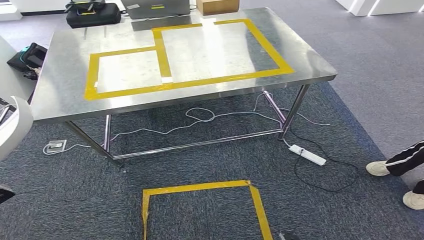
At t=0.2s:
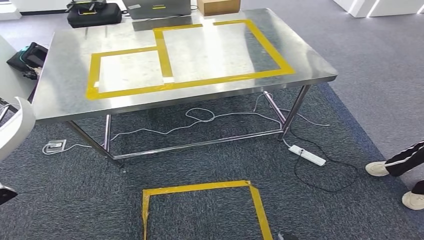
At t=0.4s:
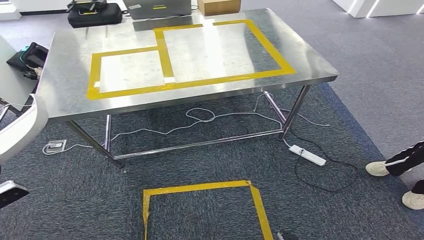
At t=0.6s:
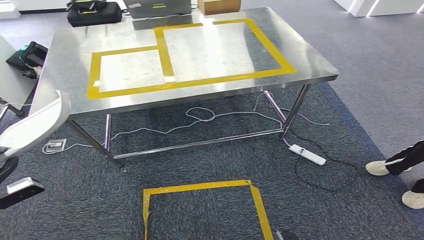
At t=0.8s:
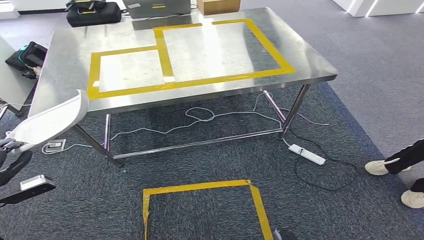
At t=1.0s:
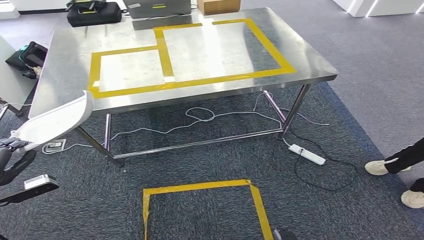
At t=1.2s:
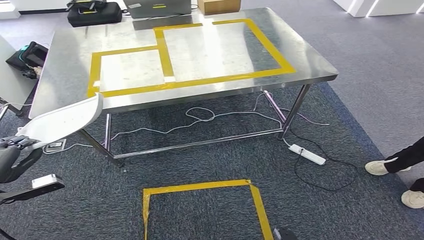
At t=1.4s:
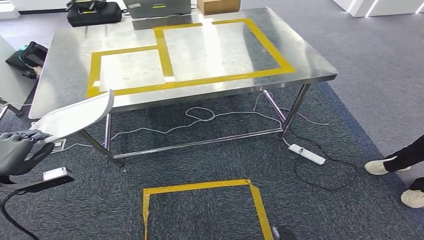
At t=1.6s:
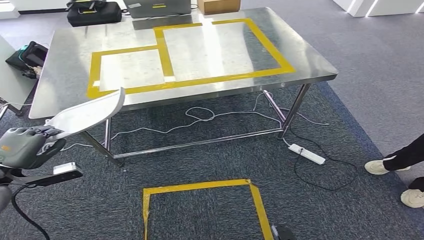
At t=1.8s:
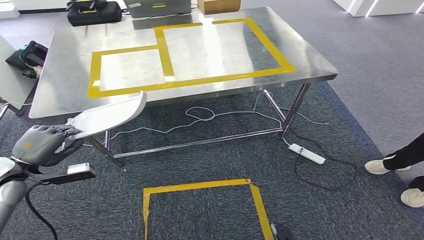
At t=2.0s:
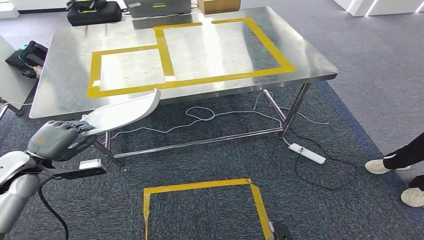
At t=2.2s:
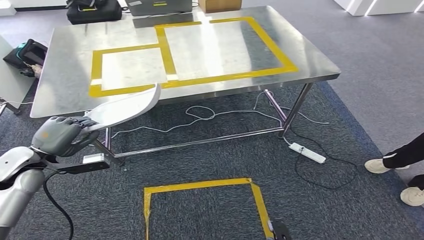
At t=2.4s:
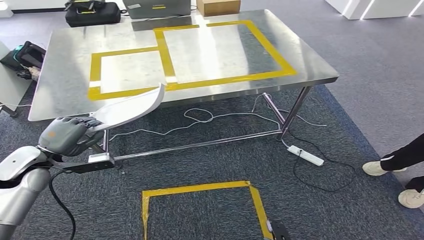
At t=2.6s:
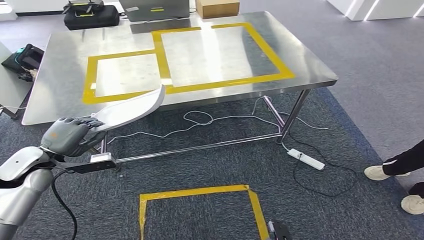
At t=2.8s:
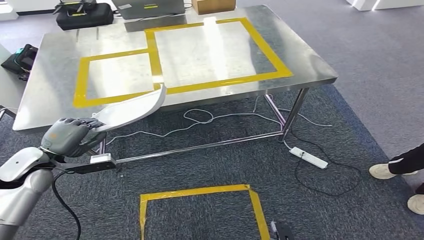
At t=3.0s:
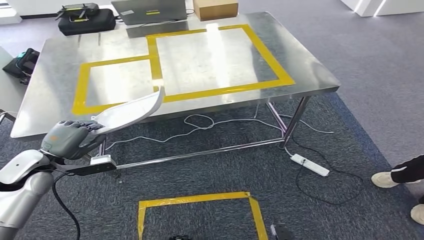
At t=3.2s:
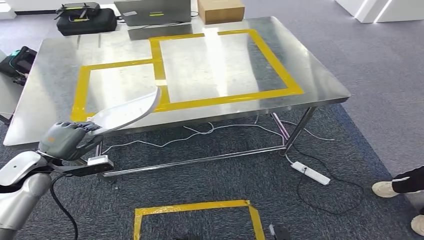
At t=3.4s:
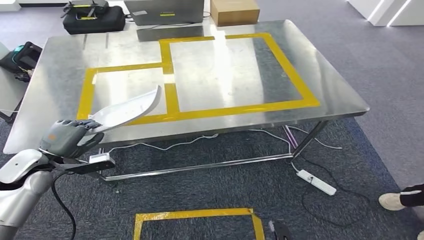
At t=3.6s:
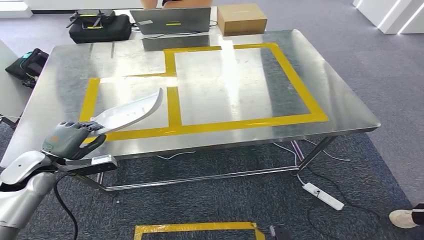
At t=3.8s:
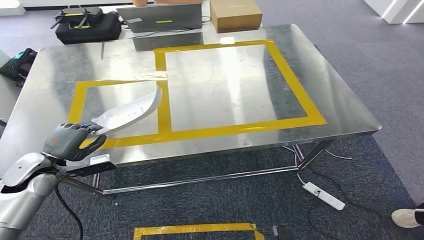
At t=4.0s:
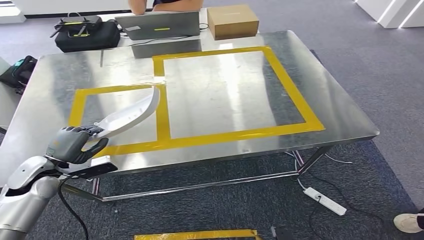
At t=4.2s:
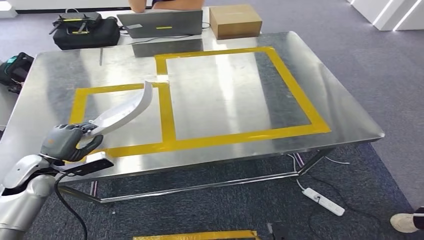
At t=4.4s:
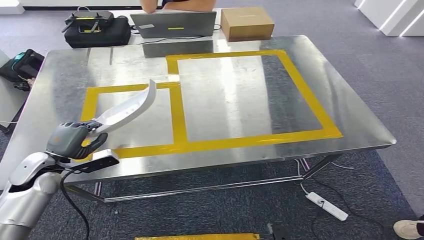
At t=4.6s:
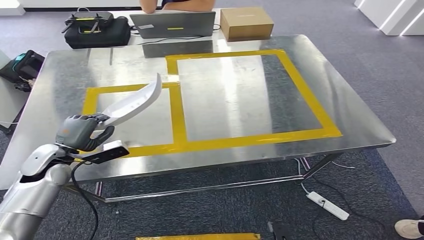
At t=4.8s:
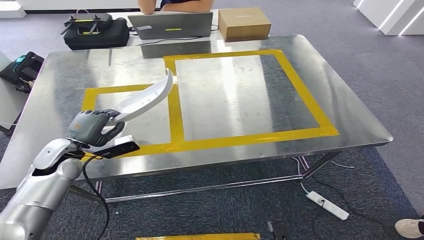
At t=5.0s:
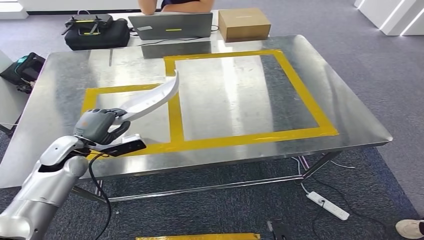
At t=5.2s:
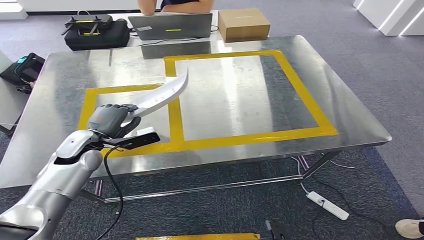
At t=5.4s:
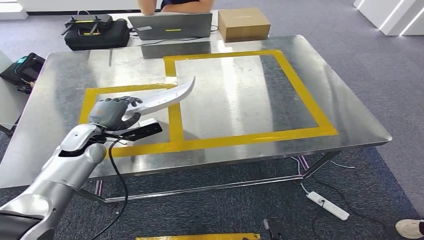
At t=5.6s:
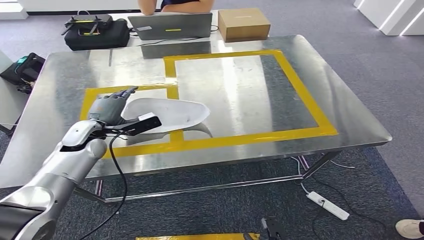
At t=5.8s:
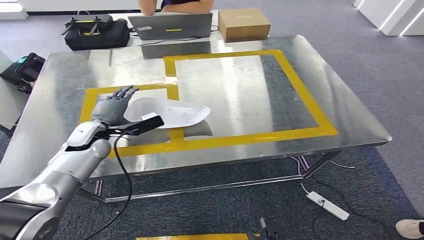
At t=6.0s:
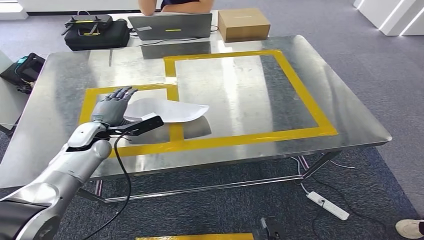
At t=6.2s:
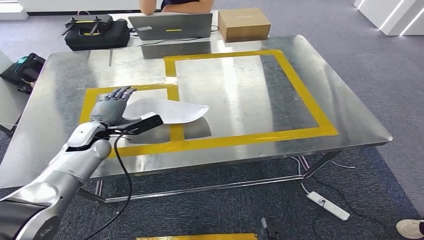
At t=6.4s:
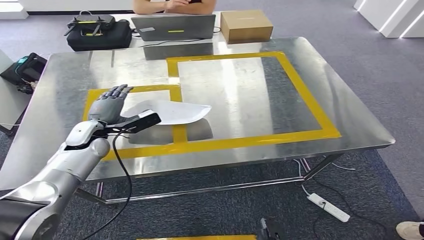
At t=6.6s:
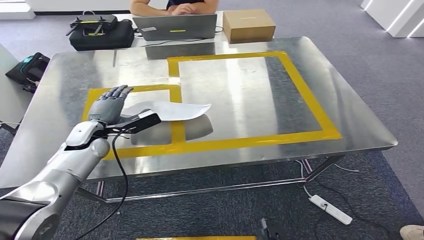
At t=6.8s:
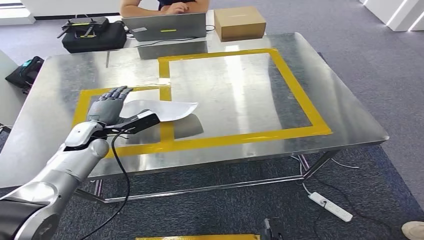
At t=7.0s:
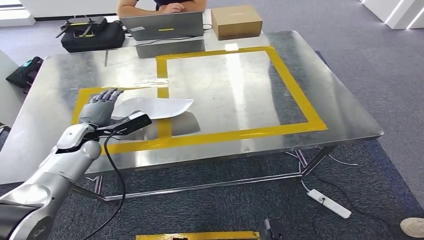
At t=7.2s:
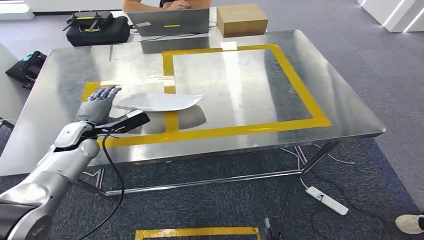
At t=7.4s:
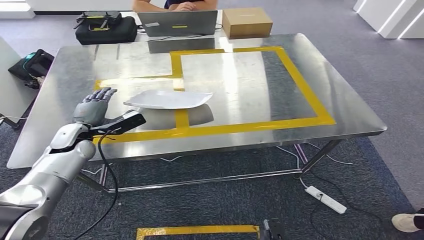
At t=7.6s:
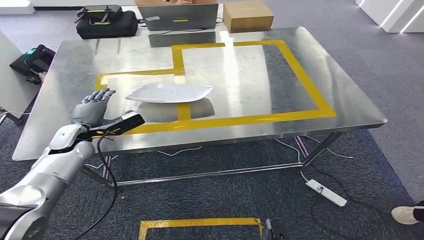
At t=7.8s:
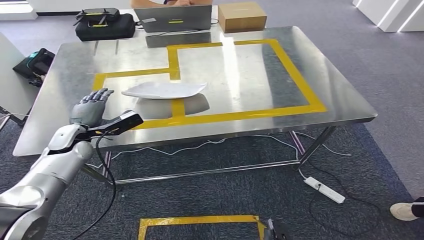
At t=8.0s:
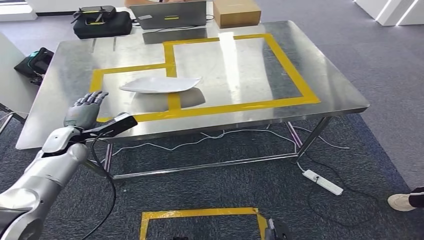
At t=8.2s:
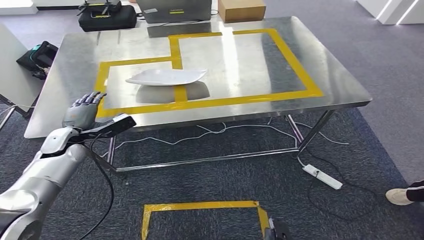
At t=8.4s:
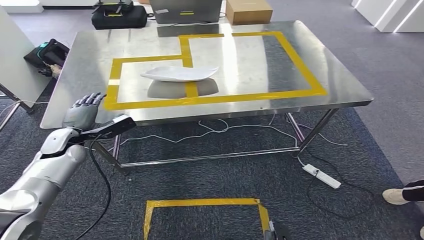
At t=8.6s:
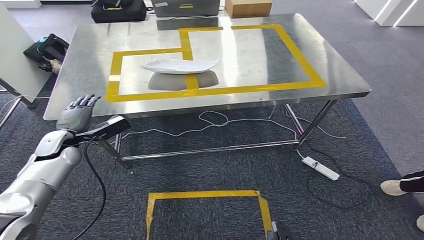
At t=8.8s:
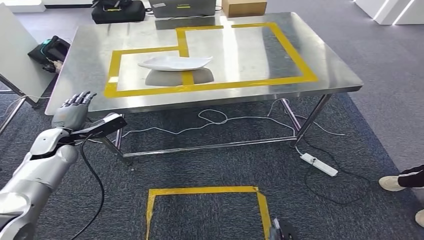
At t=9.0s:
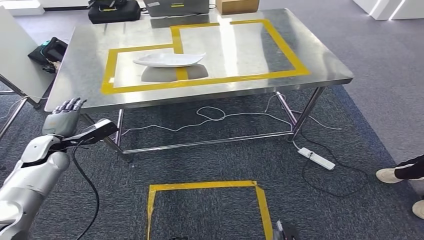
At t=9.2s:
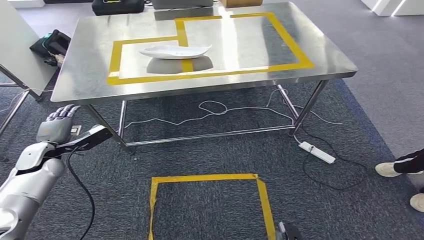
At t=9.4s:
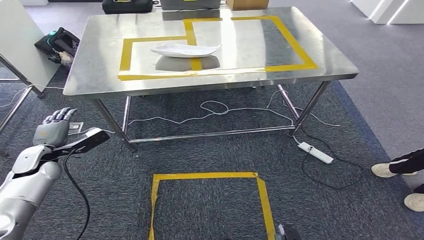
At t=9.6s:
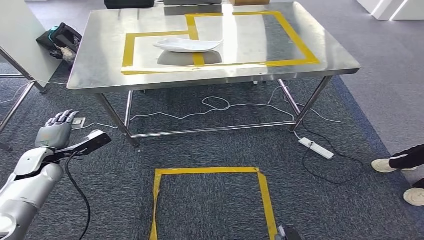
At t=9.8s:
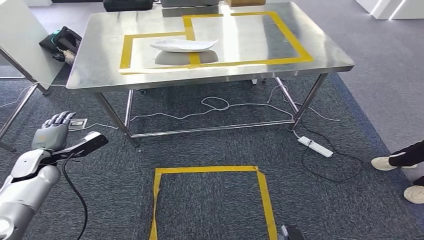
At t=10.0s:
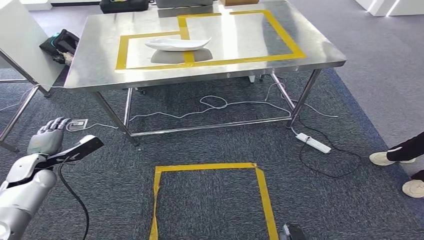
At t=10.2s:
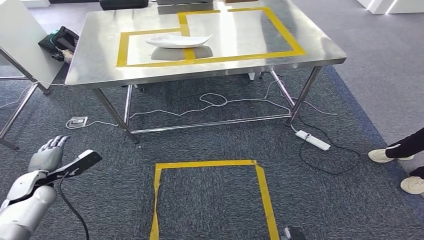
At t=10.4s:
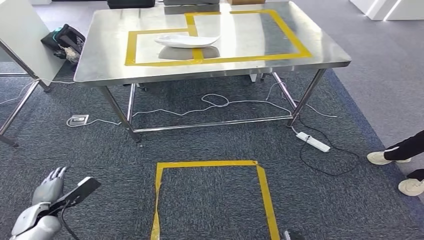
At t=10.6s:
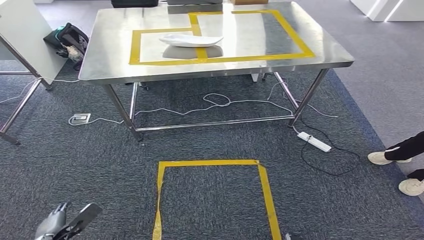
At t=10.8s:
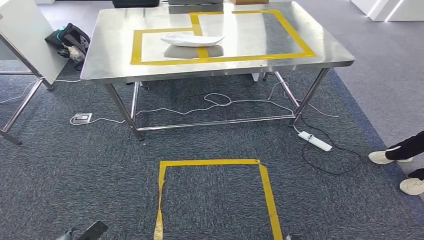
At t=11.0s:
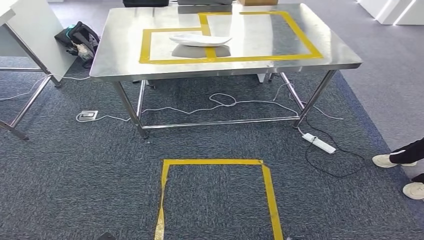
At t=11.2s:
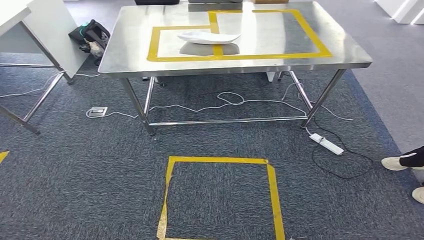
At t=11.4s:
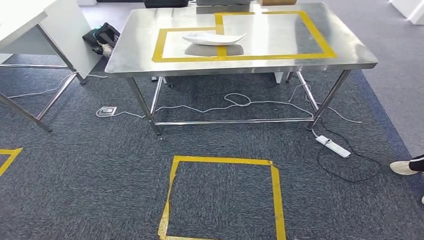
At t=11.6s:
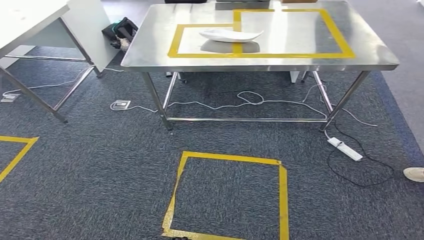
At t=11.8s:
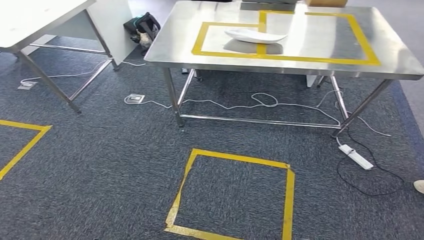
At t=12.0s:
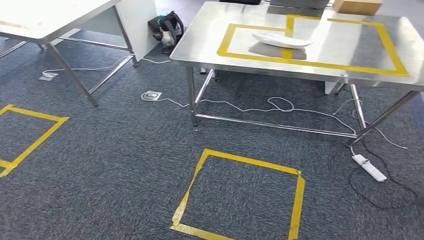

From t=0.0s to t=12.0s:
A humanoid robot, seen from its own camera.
Step, from t=0.0s to t=7.6s: Insert the small parts into the corresponding holes on the workbench.
From t=0.0s to t=1.6s: The left hand is displaced forward and to the right by roughly 15 cm.

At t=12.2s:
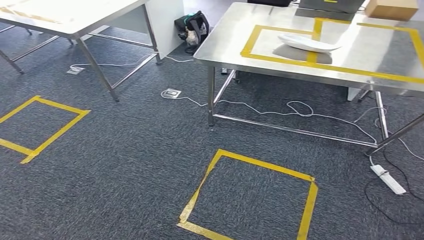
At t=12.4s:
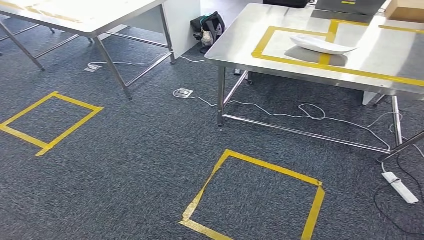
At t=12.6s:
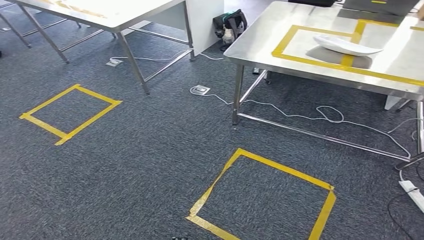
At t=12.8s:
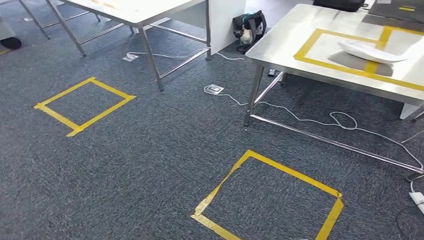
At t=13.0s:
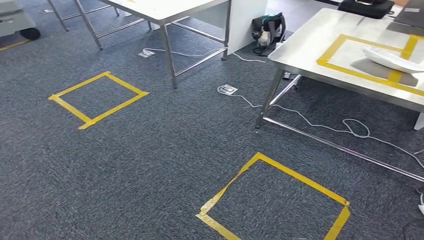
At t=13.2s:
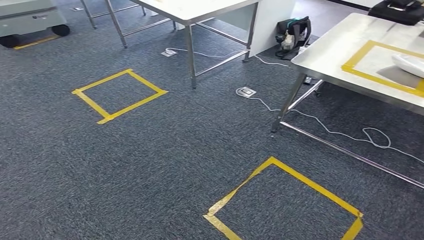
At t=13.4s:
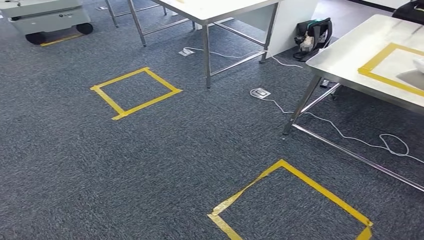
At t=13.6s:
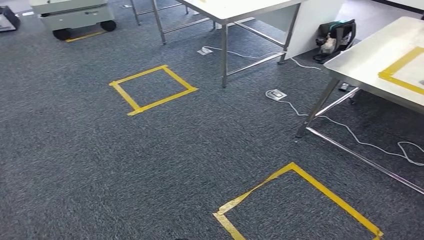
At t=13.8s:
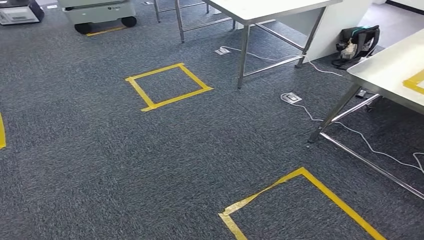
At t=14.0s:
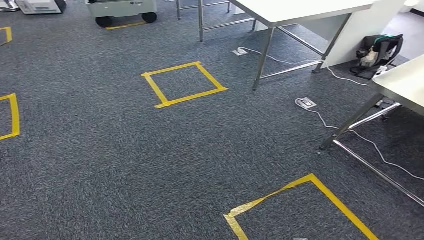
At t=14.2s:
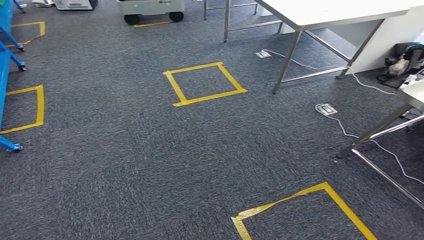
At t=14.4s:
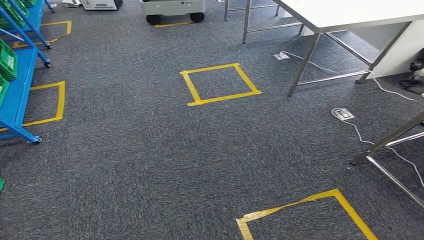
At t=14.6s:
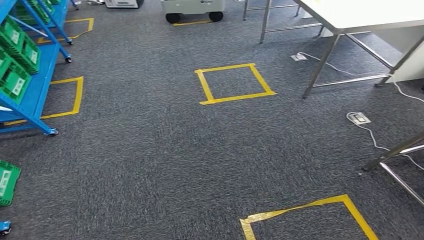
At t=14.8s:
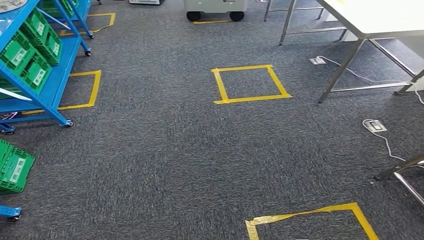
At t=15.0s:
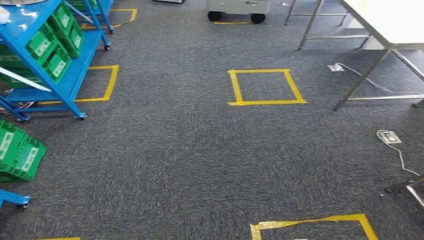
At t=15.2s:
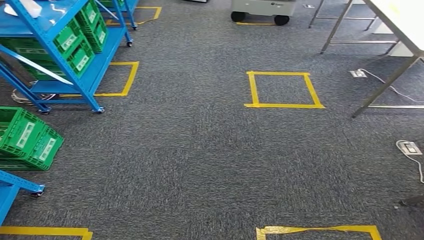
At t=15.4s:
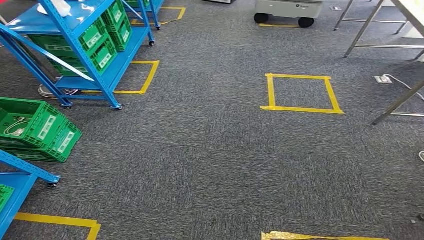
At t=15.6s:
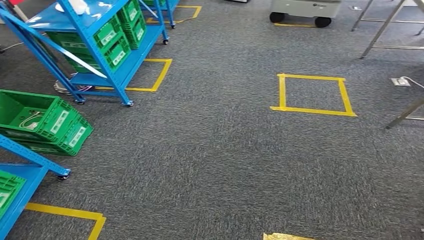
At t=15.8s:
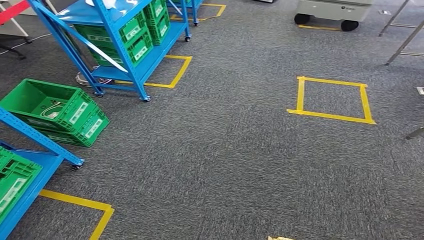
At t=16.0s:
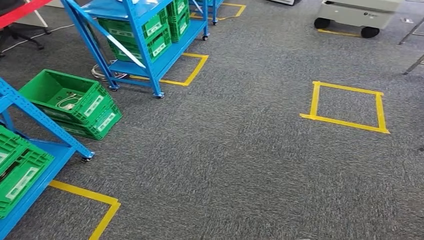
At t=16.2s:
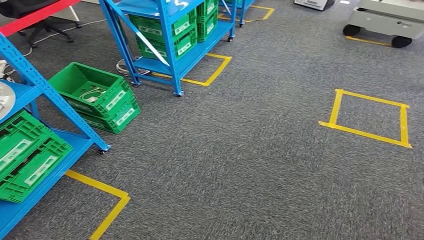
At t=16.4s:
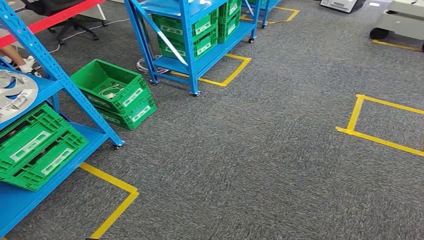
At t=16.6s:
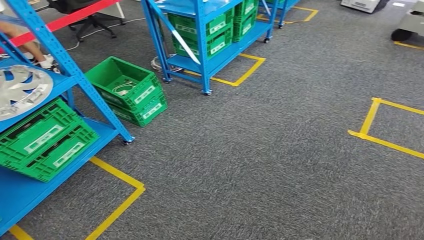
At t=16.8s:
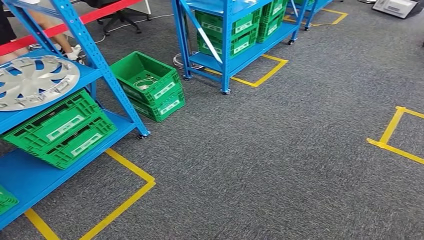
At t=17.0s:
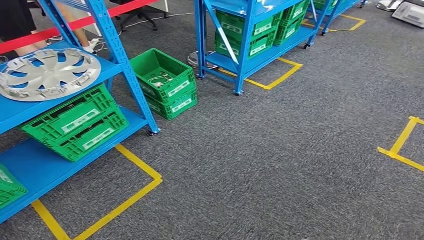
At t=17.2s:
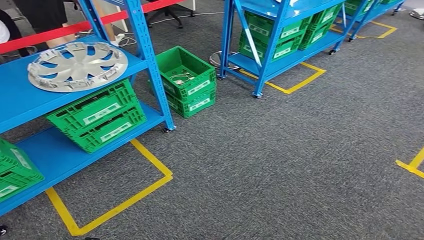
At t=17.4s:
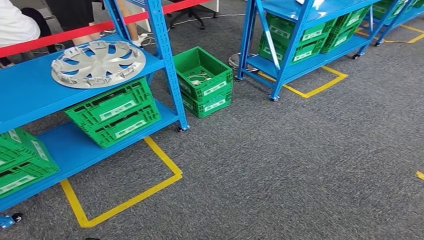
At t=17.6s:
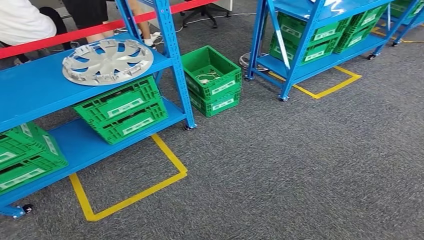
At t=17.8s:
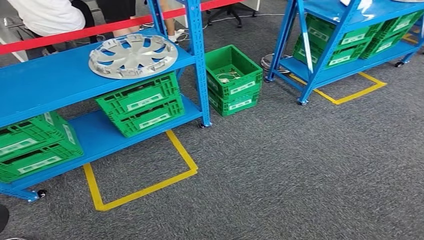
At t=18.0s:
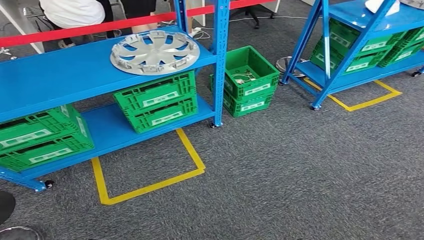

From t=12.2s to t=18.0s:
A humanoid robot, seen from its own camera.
Step, from t=12.2s to t=18.0s: Move to the initial position at the workbench.
